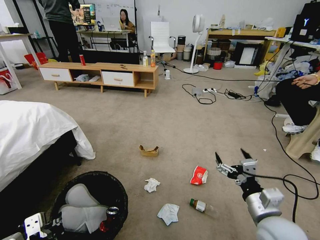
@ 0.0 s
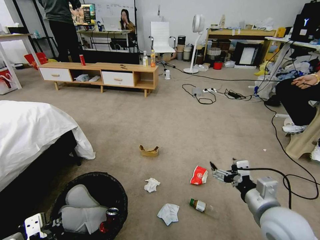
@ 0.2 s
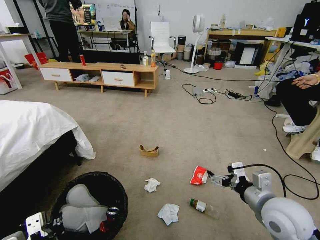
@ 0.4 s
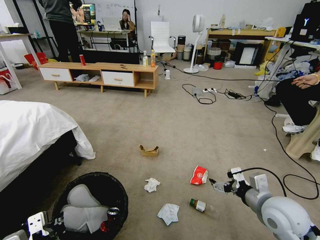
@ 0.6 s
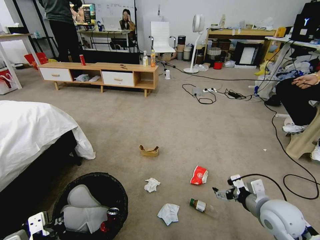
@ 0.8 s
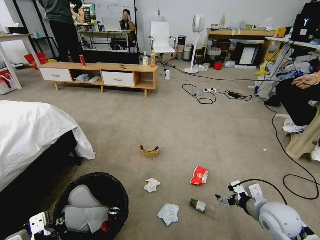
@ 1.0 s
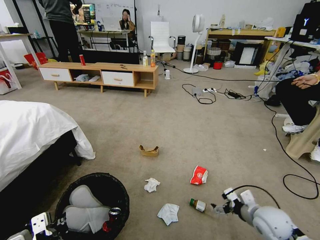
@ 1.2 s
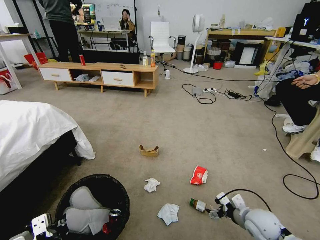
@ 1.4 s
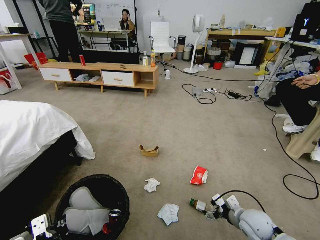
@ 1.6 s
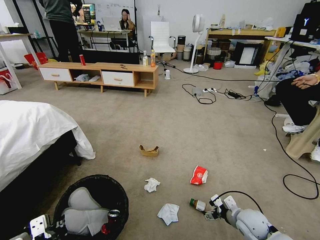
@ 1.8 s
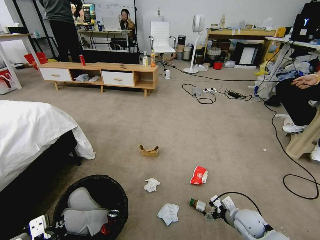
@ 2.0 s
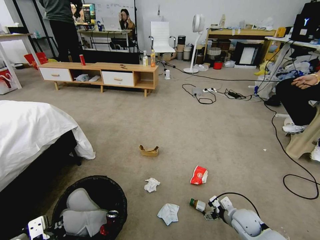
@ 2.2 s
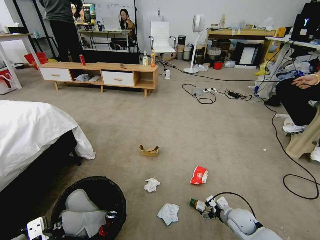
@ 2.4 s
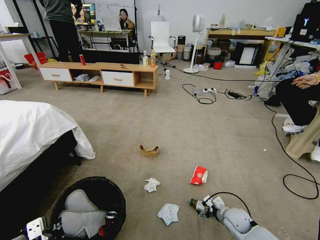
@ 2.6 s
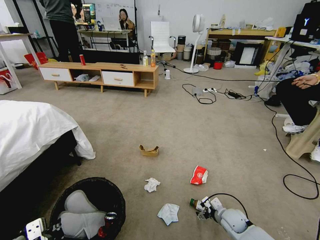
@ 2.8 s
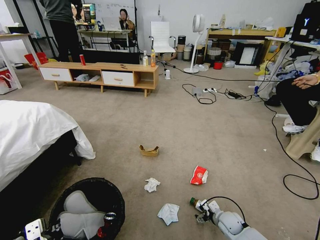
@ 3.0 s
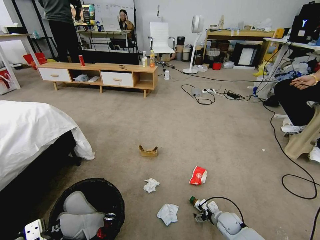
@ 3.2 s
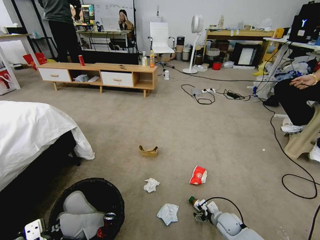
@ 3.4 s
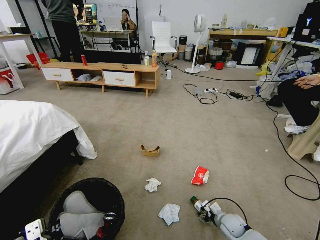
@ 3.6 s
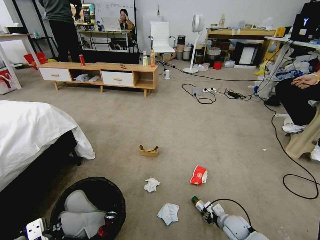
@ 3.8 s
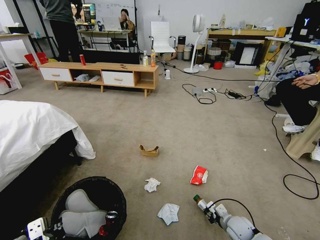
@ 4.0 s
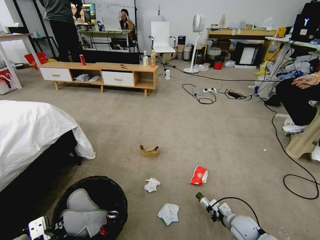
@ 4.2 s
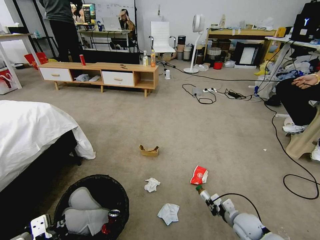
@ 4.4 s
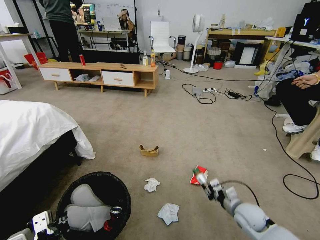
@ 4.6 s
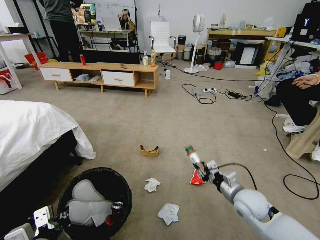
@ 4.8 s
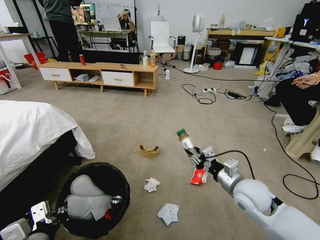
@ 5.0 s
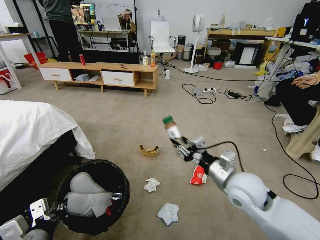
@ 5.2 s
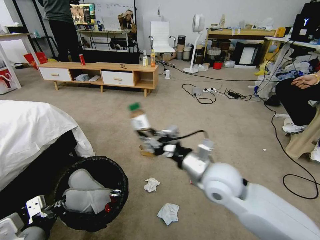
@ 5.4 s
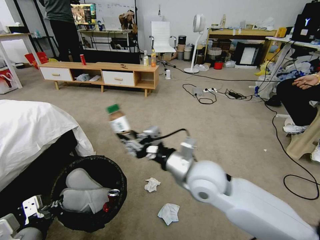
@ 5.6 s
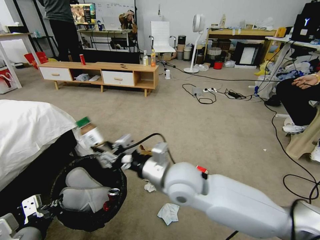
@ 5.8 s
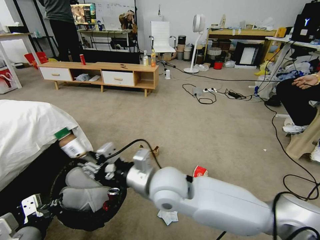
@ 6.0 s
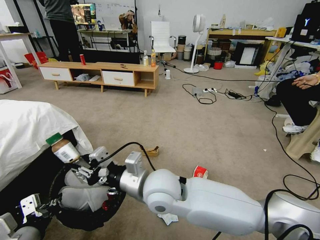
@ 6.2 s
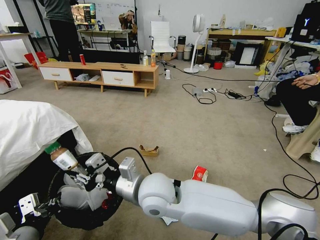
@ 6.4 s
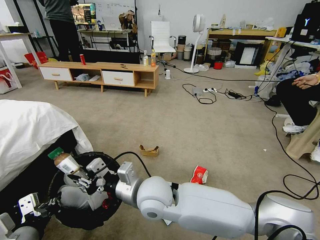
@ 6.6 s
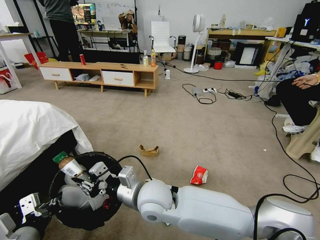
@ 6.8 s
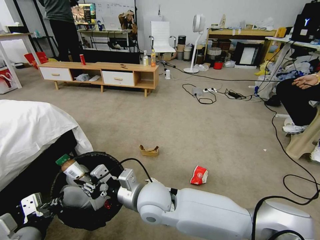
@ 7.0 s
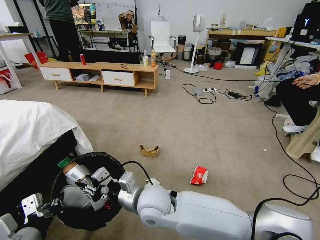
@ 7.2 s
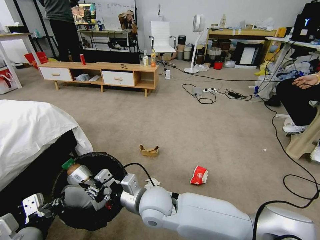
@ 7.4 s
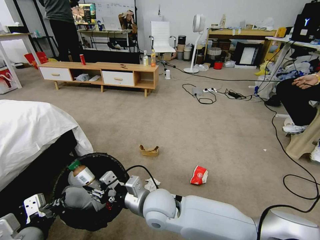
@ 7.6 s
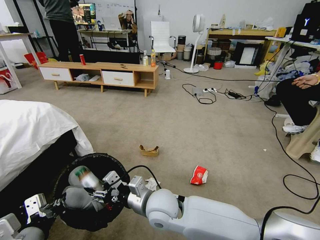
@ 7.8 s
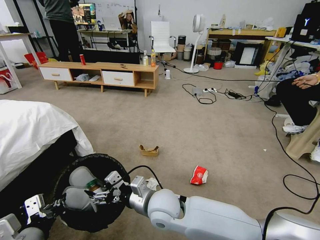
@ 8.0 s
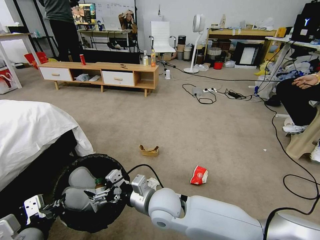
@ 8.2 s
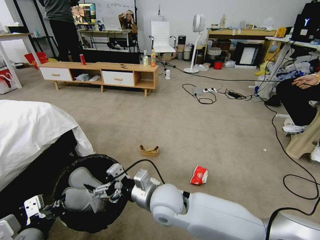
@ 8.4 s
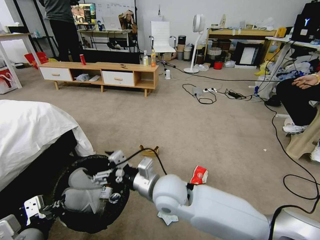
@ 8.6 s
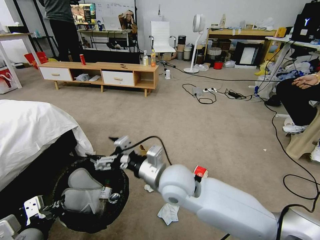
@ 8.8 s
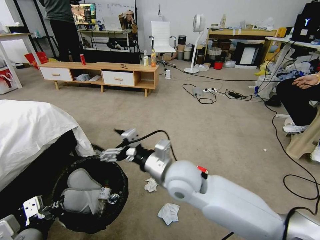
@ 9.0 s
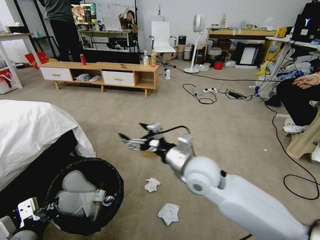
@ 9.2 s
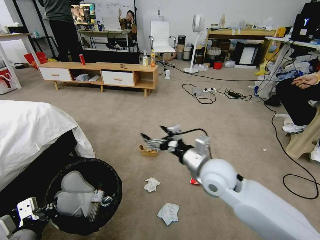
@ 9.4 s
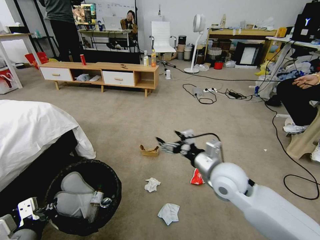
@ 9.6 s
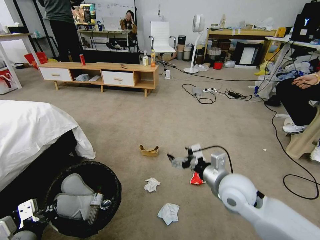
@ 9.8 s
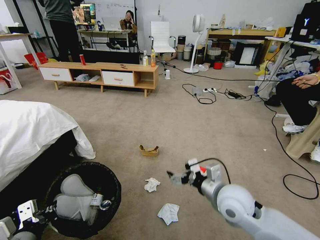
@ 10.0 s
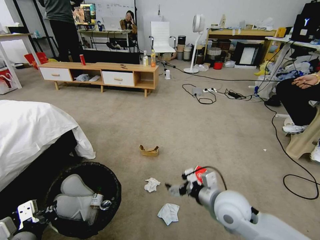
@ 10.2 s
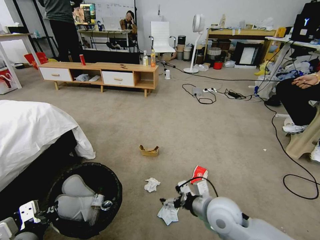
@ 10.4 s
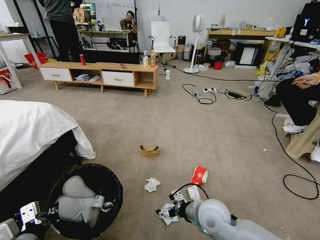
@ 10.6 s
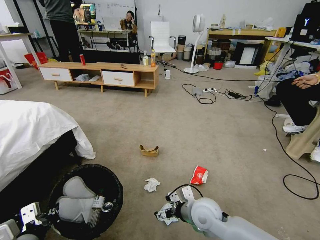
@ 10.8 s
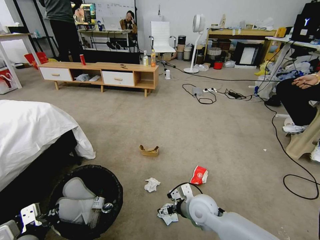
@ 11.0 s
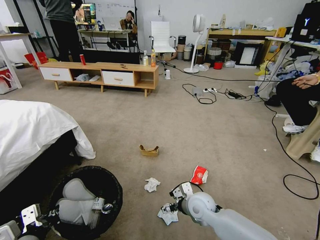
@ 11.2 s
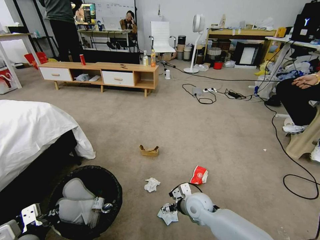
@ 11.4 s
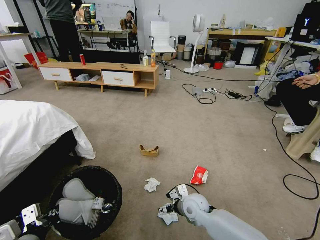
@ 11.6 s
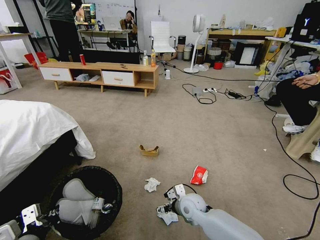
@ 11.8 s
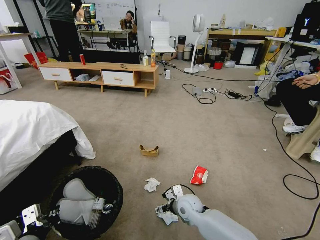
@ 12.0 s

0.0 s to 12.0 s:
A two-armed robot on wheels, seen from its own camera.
Task of the whole recording: Pick up the trash bin and place the garbage on the floor into it.
0.0 to 1.6 s: The right gripper shifts approximately 15 cm downward and forward.
1.6 to 3.0 s: The right gripper travels downward by roughly 15 cm.
3.0 to 4.4 s: The right gripper shifts by roughly 5 cm, and closes.
4.4 to 6.0 s: The left gripper shifts by about 5 cm, while the right gripper shifts roughly 40 cm upward and to the left.
6.0 to 7.6 s: The right gripper shifts approximately 10 cm downward.
7.6 to 9.0 s: The right gripper shifts some 10 cm upward, and opens its fingers.
9.0 to 10.4 s: The right gripper heads to the right and downward, covering approximately 20 cm.
10.4 to 12.0 s: The right gripper goes roughly 15 cm downward, forward and to the left.

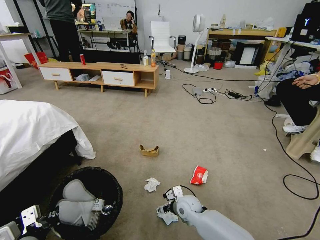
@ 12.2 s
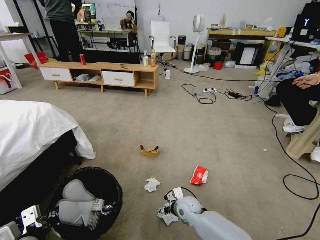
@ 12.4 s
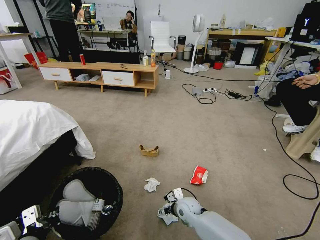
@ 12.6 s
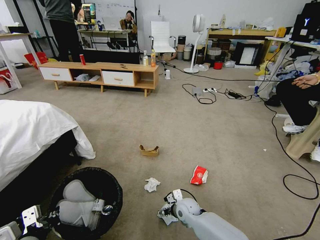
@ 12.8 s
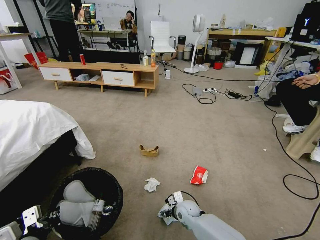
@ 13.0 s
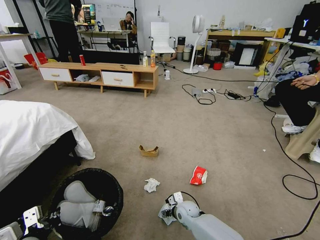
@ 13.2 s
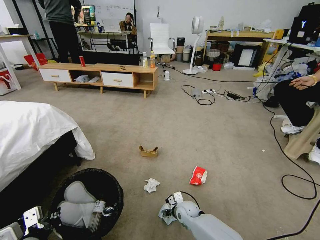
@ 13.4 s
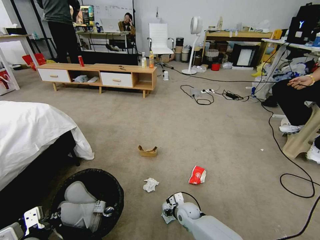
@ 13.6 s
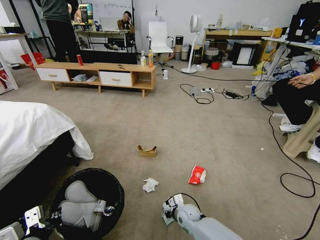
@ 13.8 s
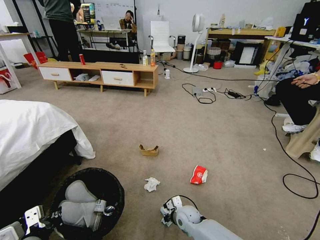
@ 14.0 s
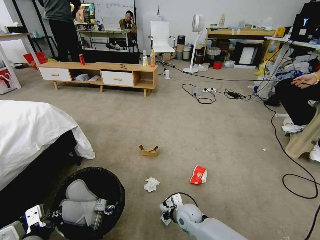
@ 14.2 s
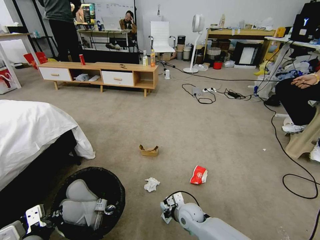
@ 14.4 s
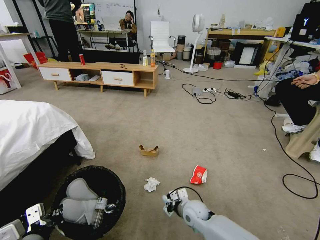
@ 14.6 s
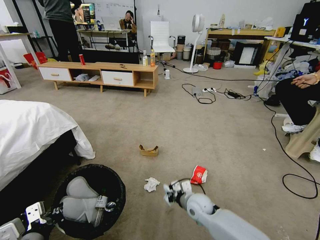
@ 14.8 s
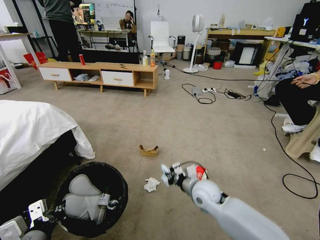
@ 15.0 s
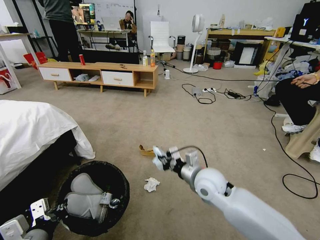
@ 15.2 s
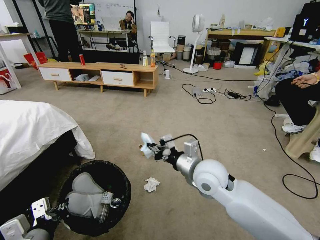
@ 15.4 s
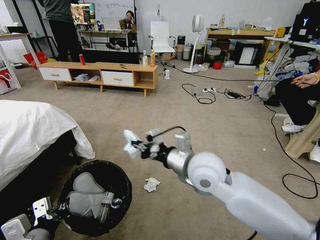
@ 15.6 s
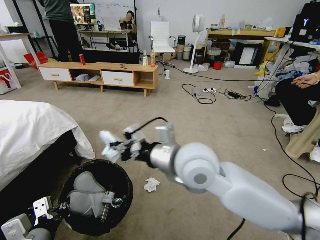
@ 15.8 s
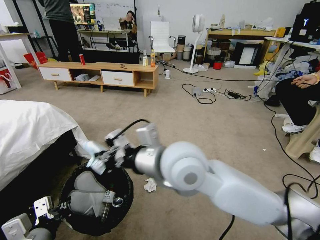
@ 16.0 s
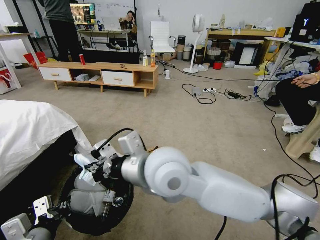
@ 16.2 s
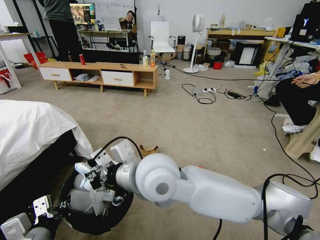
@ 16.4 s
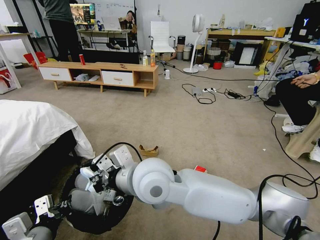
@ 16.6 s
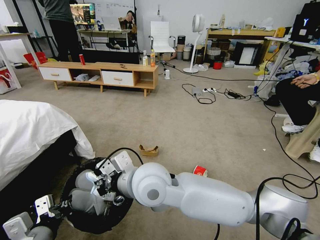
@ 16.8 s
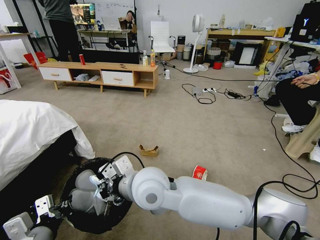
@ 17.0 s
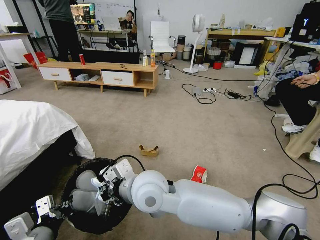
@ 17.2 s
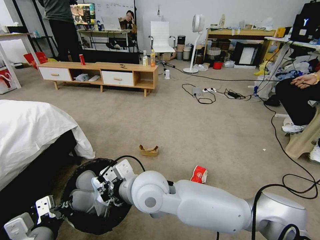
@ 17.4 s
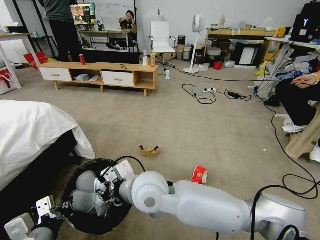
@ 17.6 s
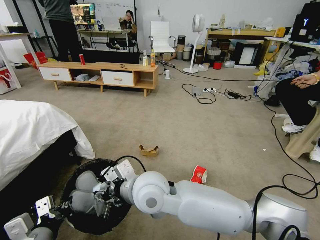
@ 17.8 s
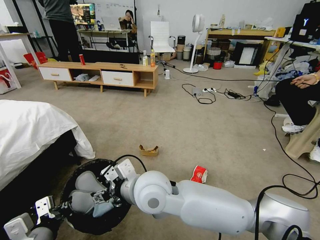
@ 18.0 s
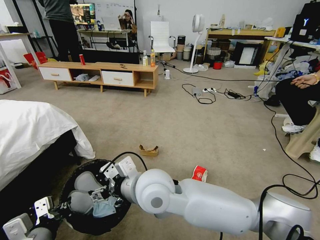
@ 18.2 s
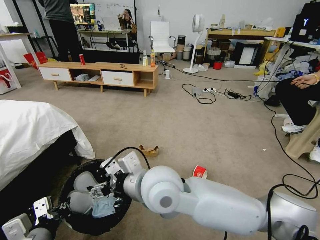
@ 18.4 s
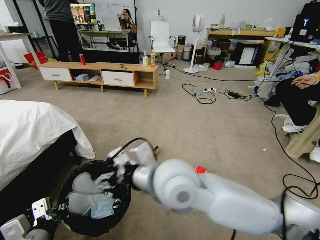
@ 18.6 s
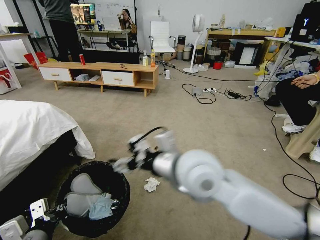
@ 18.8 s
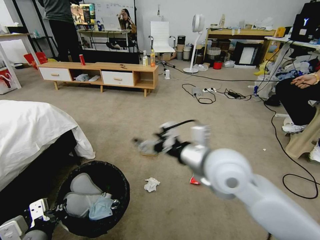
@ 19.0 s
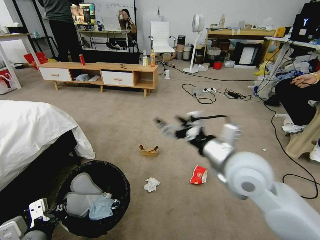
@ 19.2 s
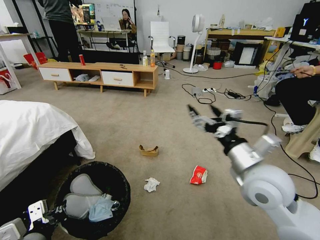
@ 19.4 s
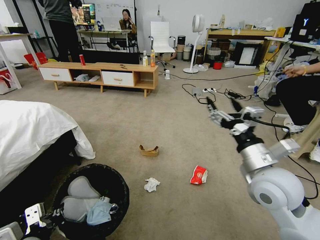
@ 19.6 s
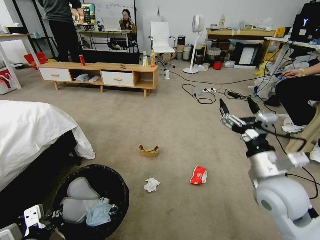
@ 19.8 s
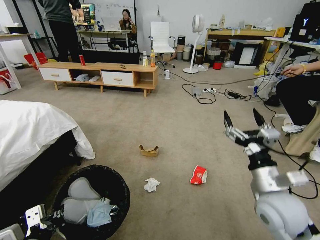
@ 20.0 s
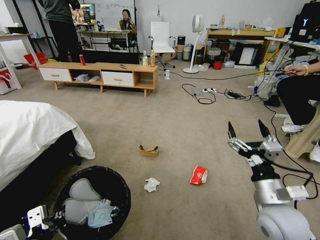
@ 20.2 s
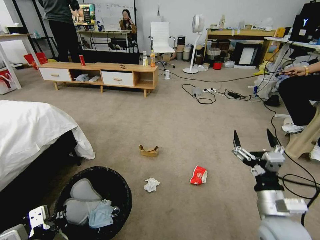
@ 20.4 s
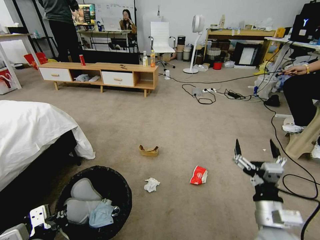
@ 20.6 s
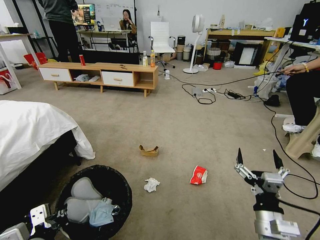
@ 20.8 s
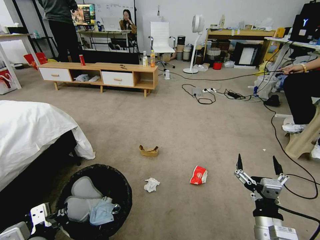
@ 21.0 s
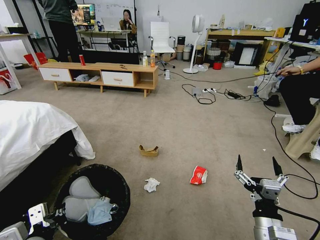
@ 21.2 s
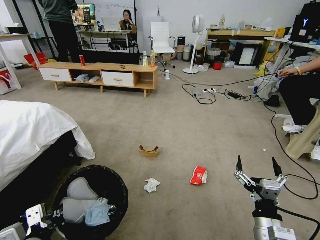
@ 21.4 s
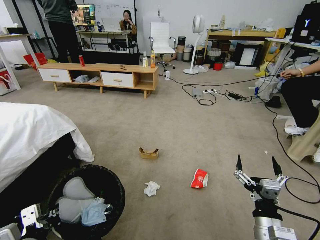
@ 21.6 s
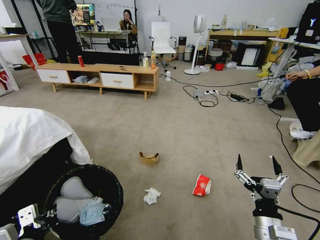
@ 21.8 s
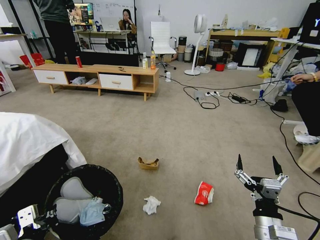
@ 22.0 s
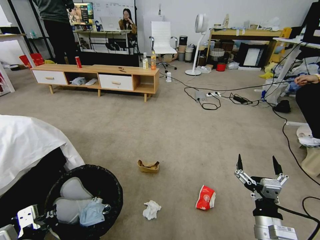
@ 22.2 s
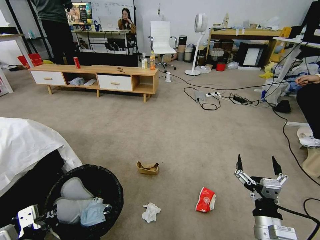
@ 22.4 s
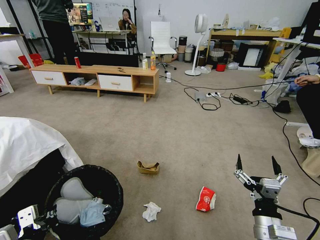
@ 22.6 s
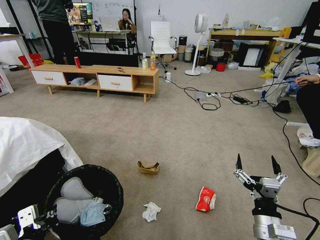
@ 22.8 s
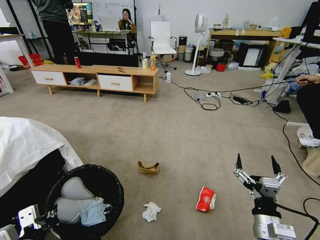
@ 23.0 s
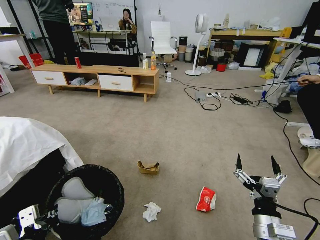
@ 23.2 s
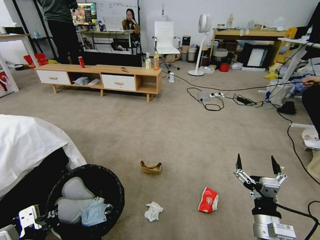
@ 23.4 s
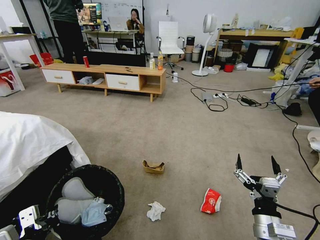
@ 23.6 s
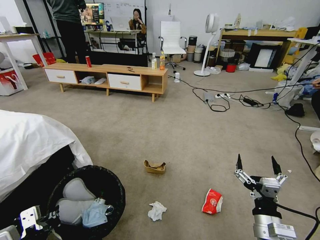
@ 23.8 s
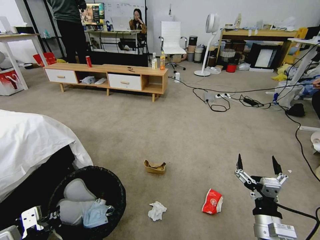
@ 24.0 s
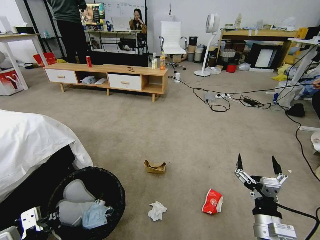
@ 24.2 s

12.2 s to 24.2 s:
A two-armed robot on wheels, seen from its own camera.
Task of the whole recording: Pick up the trash bin and place the garbage on the floor into it.
12.2 to 13.8 s: The right gripper goes roughly 5 cm downward, and closes its fingers.
13.8 to 15.2 s: The right gripper moves upward, approximately 25 cm.
15.2 to 16.6 s: The right gripper heads to the left, upward and backward, covering some 25 cm.
16.6 to 18.2 s: The right gripper opens up.
18.2 to 19.8 s: The right gripper moves to the right, approximately 30 cm.
19.8 to 21.2 s: The right gripper shifts approximately 20 cm downward and backward.
